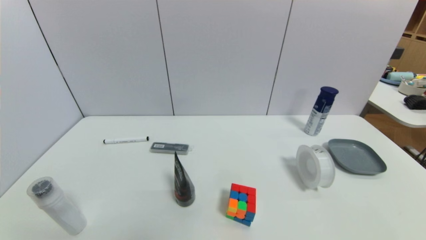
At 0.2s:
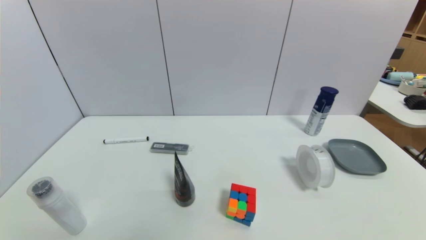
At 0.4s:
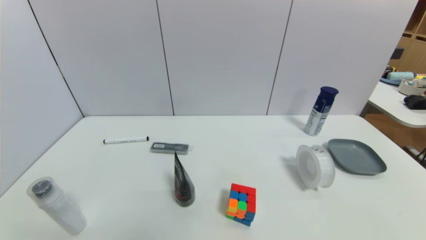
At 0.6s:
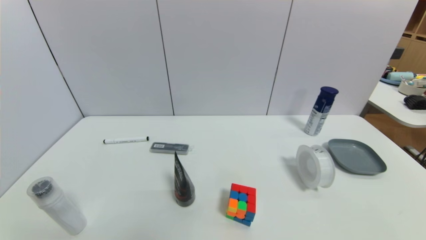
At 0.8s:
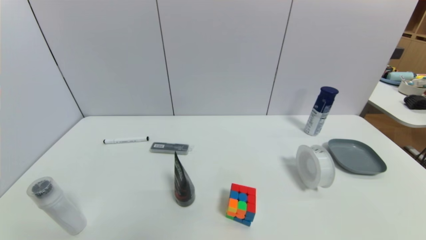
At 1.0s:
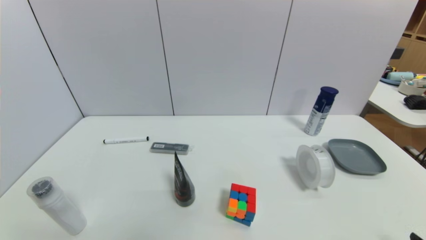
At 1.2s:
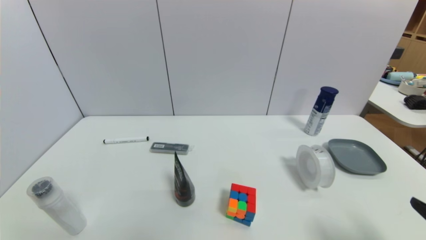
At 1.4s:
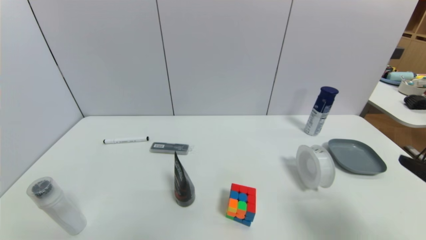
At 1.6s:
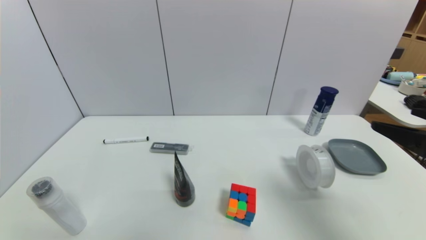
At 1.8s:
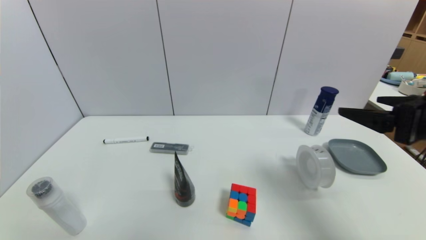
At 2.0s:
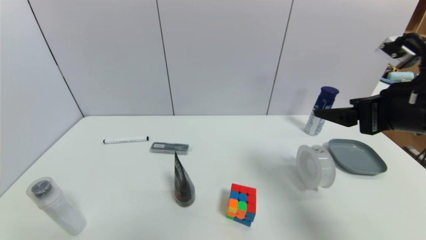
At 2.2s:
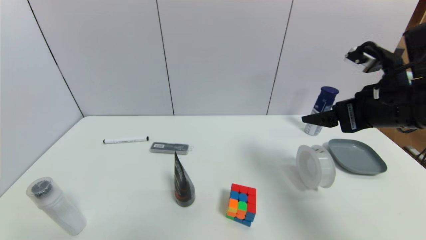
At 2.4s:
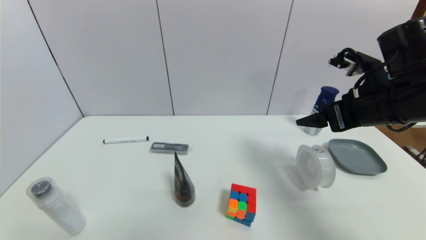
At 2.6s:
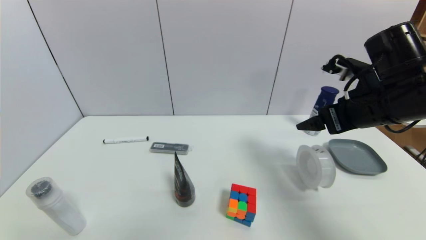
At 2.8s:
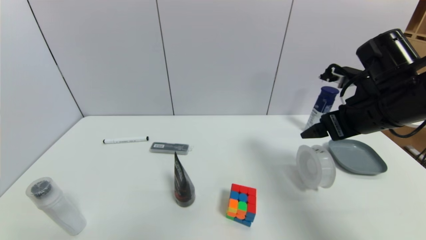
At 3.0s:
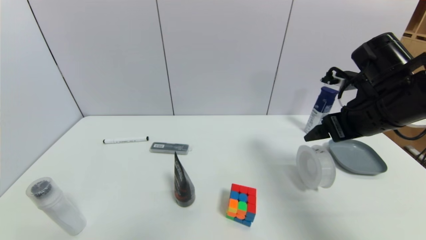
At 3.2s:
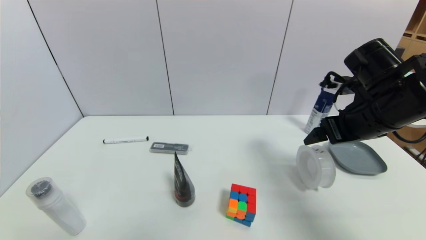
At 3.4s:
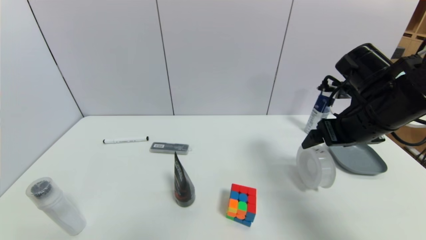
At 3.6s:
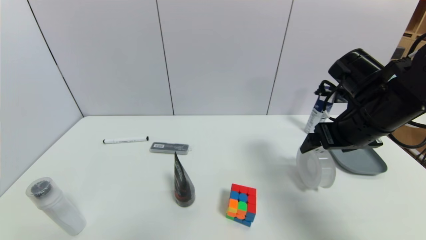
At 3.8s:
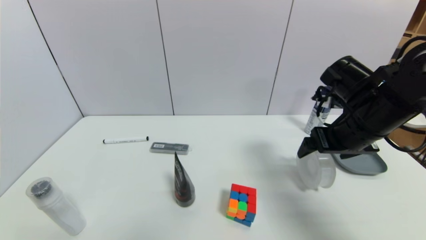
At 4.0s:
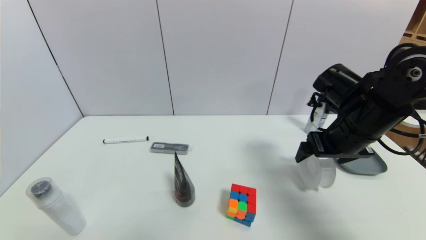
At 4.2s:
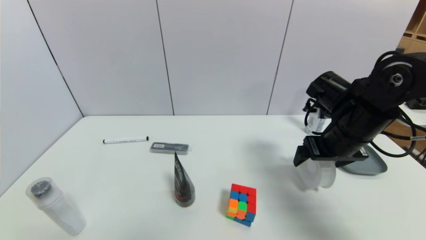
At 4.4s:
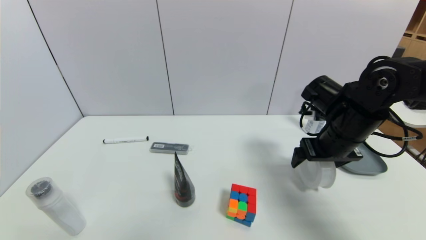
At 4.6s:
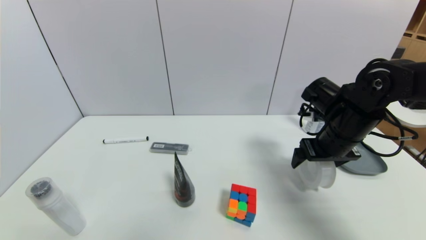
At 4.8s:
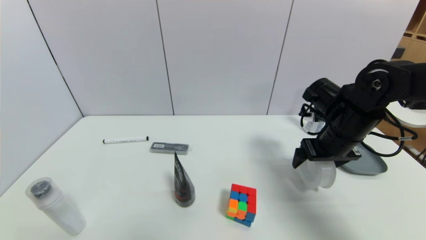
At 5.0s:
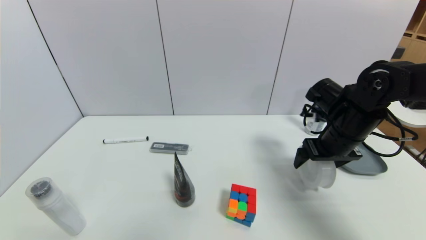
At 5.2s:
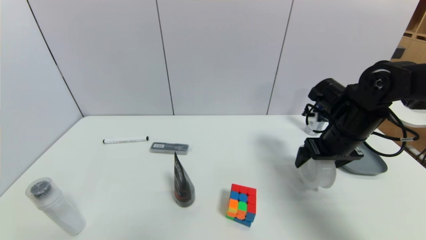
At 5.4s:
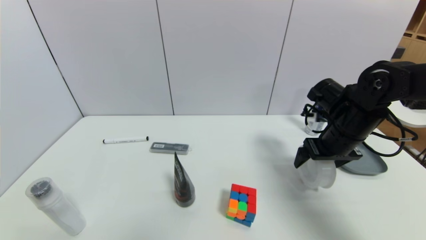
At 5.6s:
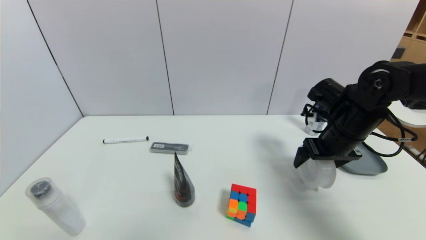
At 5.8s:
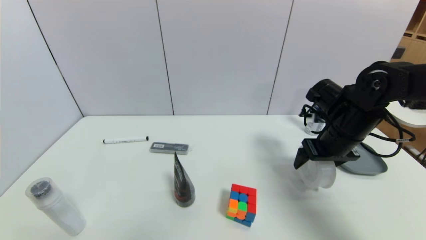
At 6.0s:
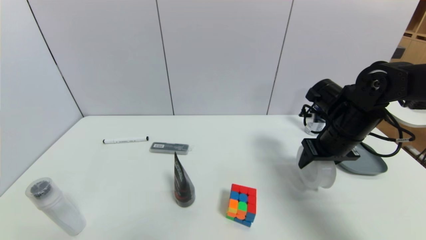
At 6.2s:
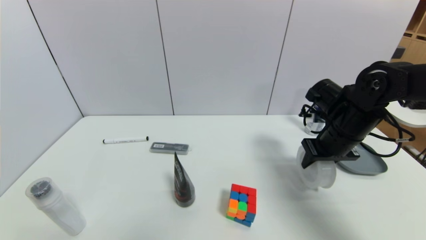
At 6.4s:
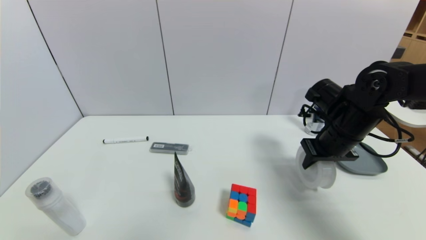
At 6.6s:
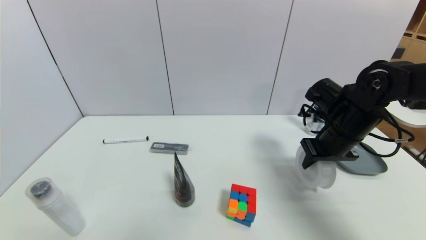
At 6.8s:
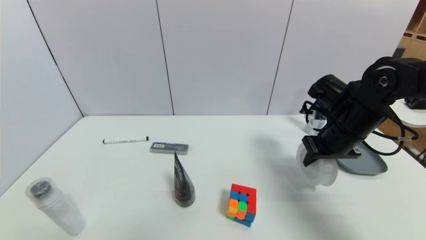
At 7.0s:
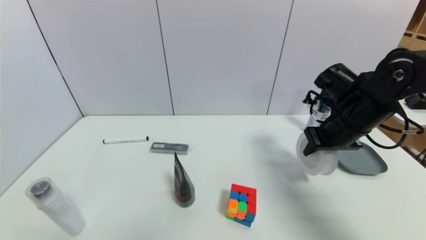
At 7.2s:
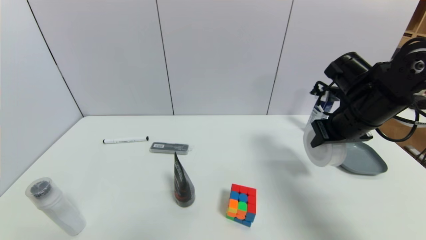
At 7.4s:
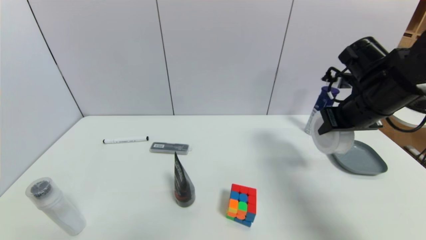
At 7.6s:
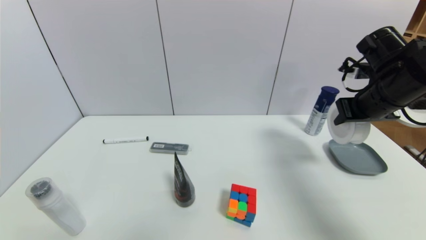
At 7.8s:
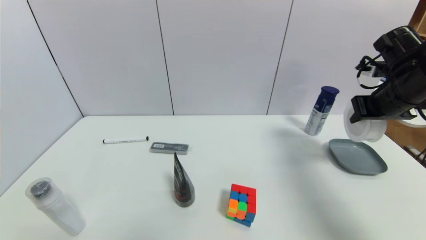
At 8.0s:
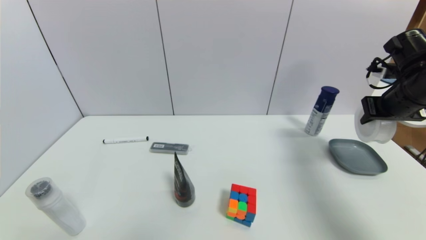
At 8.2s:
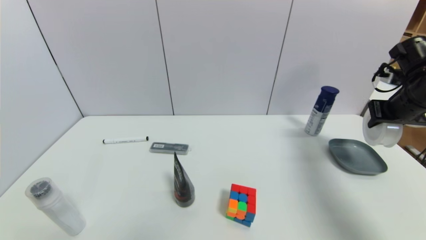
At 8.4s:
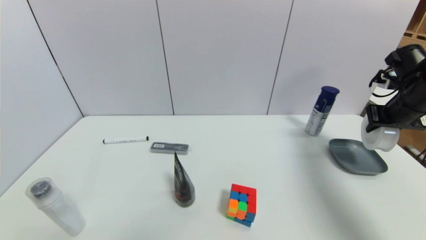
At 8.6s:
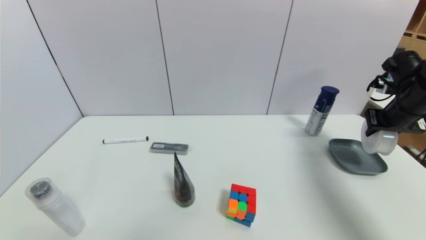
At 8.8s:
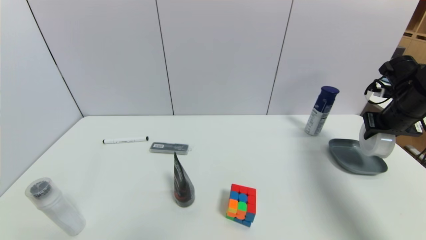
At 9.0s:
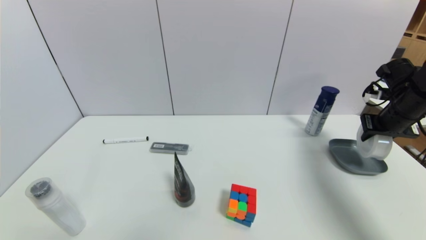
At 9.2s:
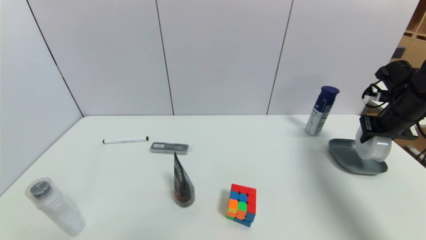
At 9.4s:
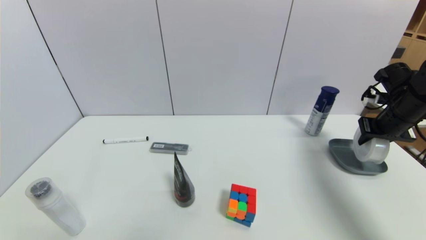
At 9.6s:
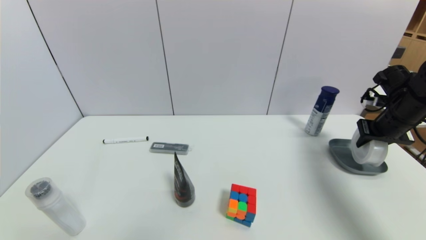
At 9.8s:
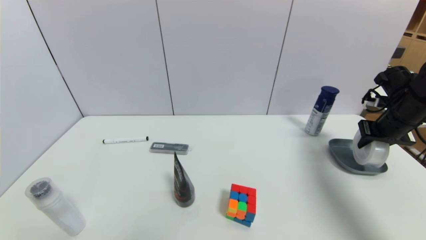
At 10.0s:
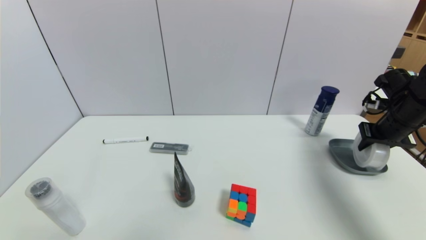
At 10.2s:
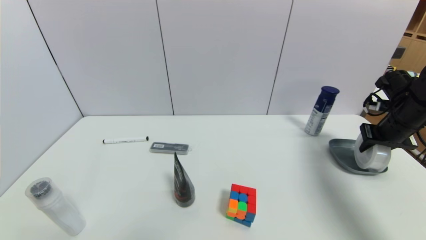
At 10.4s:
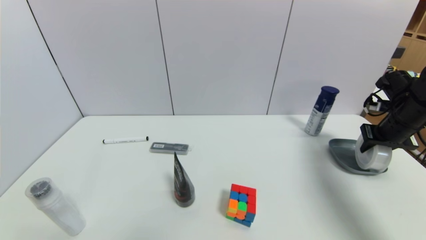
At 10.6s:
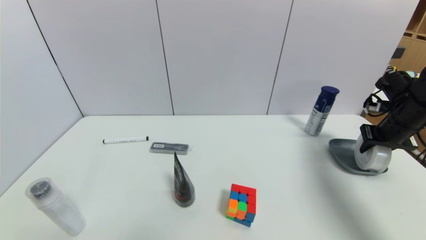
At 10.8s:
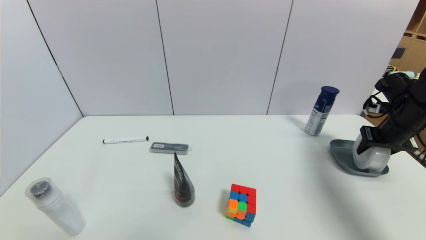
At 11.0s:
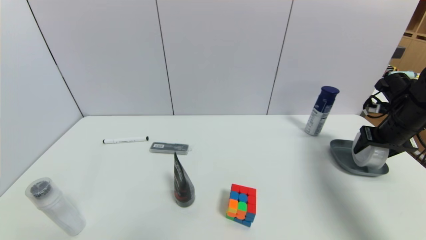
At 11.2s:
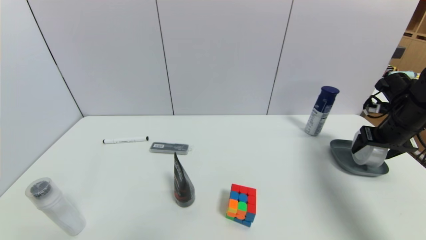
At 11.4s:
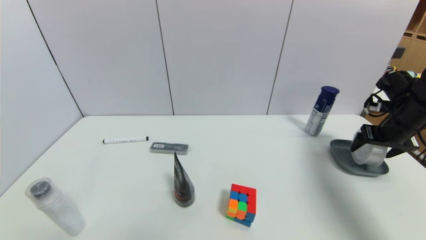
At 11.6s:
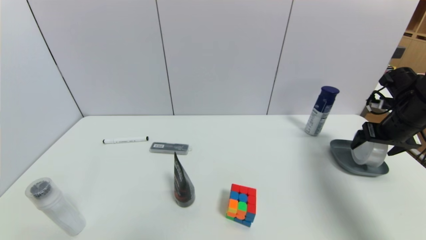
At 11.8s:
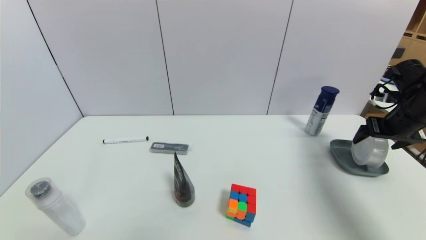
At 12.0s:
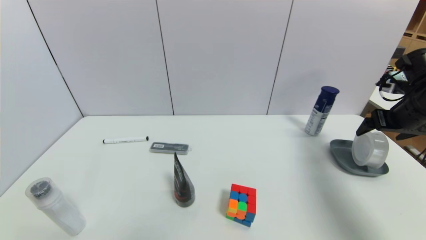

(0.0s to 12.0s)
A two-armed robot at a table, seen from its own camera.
Task of the whole recording: use a gripper to pick the target object and place on the dish.
Step, 0.0s - 6.4s: Grasp the tape with the right gripper.
0.0s - 1.6s: The right gripper heads upward and forward, covering some 25 cm.
1.6s - 3.0s: The right gripper shifts approximately 15 cm forward.
3.0s - 4.4s: The right gripper heads downward, covering roughly 5 cm.
4.4s - 6.0s: The right gripper closes up.
6.0s - 7.6s: The right gripper shifts approximately 10 cm upward and to the right, and closes its fingers.
7.6s - 9.0s: The right gripper heads to the right and downward, covering some 10 cm.
9.0s - 10.4s: The grippers make only small movements.
10.4s - 12.0s: The right gripper shifts by some 5 cm, and opens up.

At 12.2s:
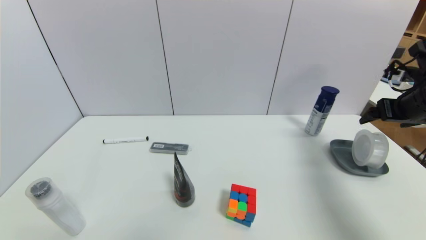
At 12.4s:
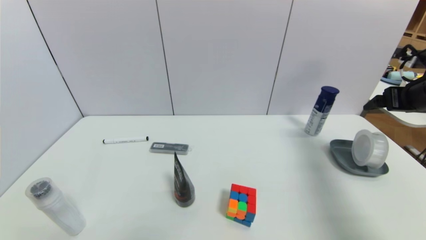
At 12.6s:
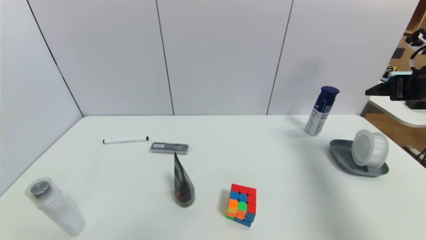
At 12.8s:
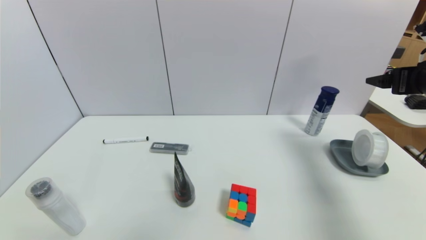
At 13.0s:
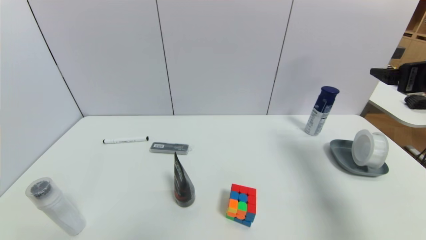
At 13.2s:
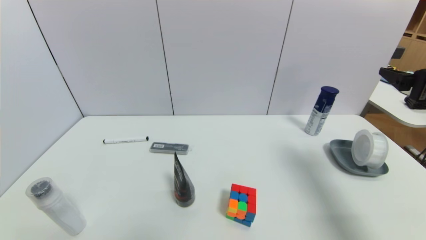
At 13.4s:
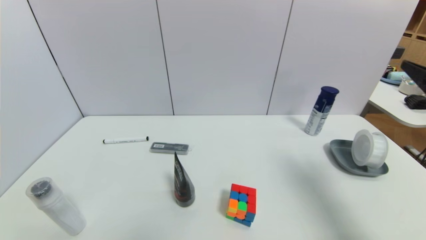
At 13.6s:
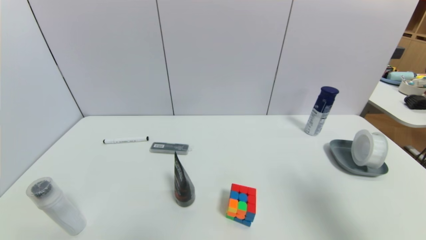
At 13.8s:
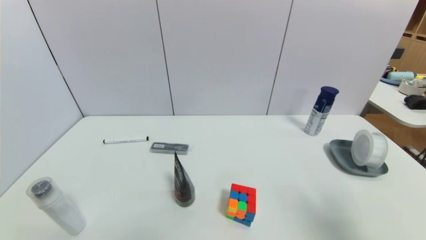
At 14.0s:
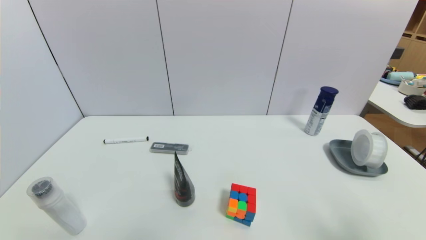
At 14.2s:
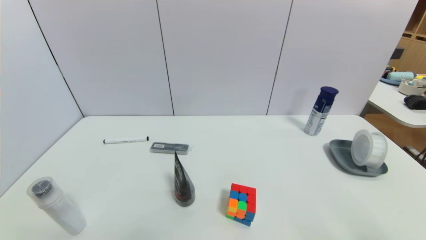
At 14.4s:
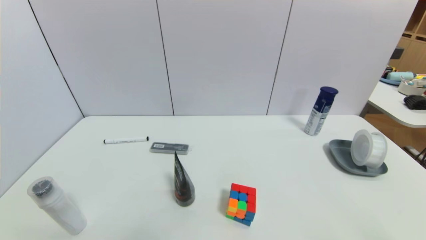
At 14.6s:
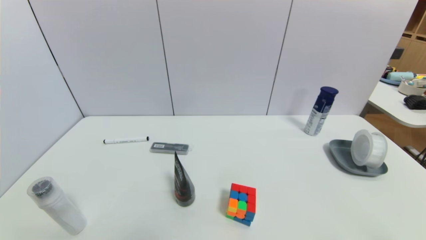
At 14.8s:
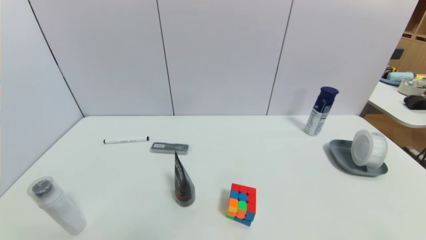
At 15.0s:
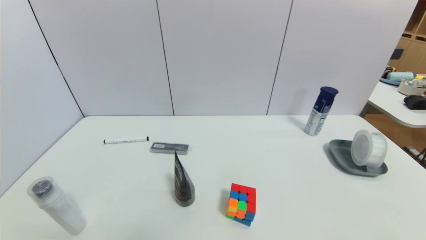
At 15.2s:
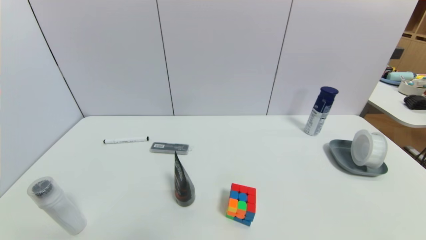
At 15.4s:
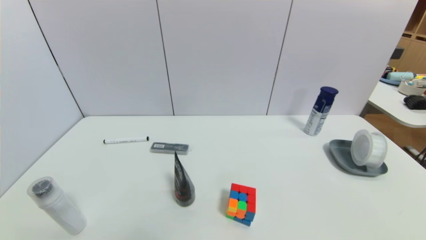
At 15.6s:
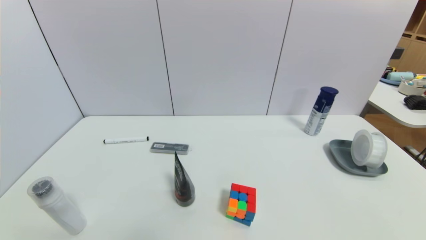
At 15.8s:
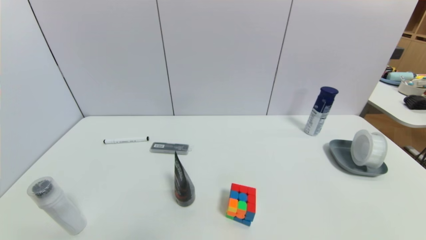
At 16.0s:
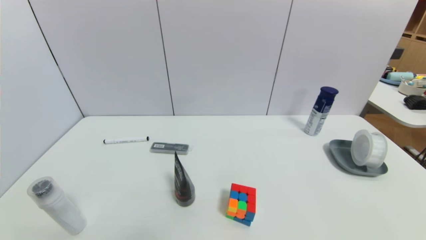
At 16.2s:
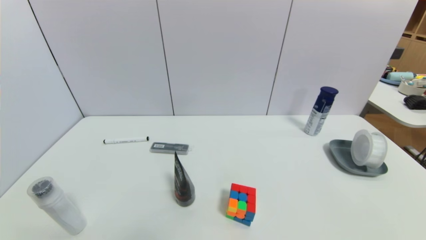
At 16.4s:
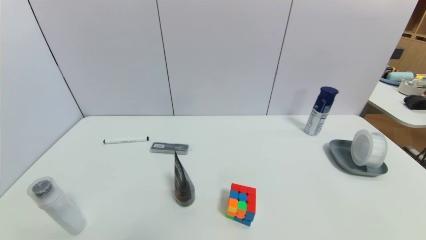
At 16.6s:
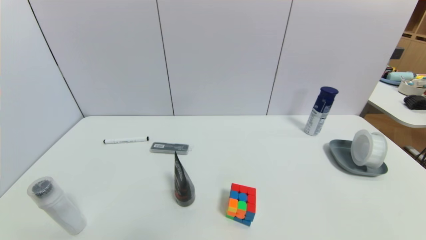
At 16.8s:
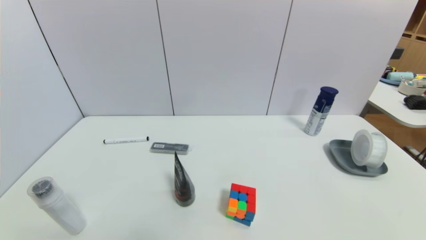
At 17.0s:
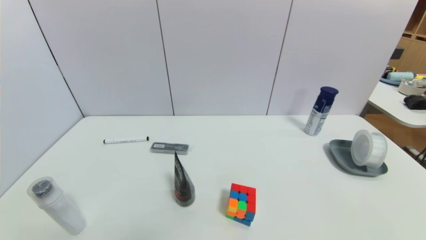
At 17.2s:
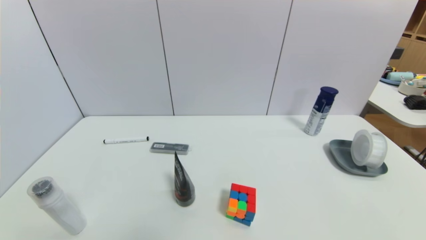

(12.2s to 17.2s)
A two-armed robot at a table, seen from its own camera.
Task of the whole recording: use a gripper to pick the target object and place on the dish.
12.2s - 13.8s: The right gripper moves backward, some 25 cm.
13.8s - 15.6s: The right gripper is displaced downward and backward by about 20 cm.
15.6s - 17.2s: Both grippers stay put.
